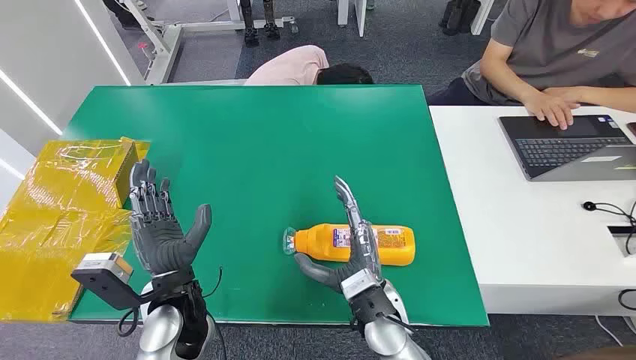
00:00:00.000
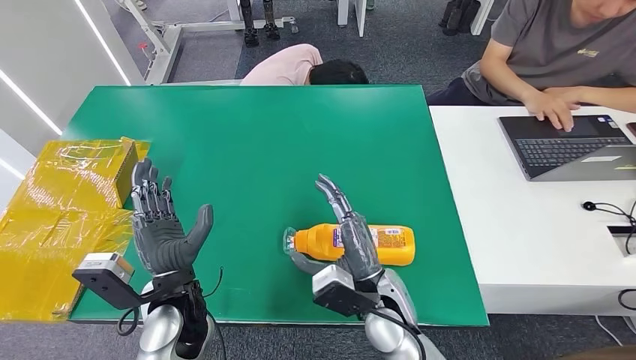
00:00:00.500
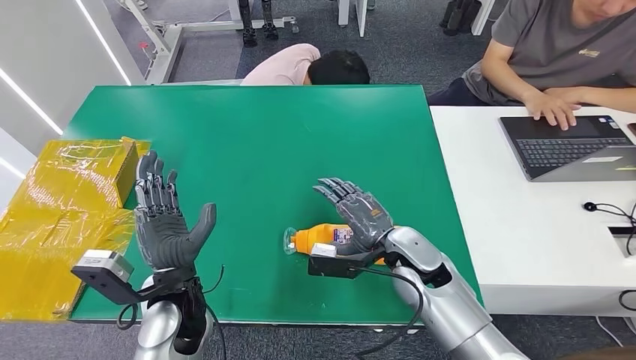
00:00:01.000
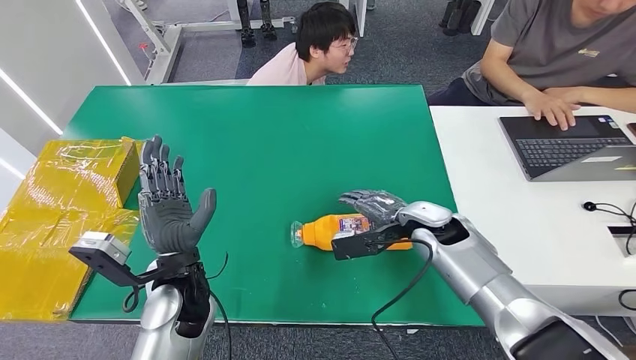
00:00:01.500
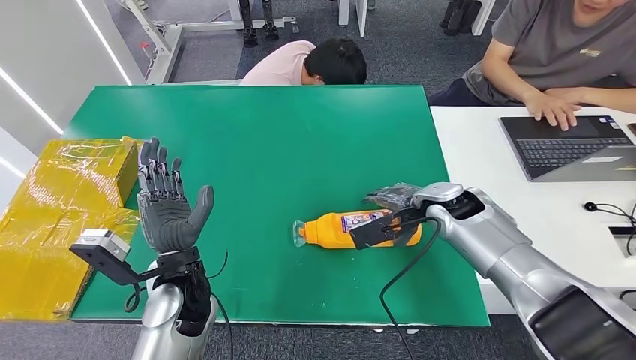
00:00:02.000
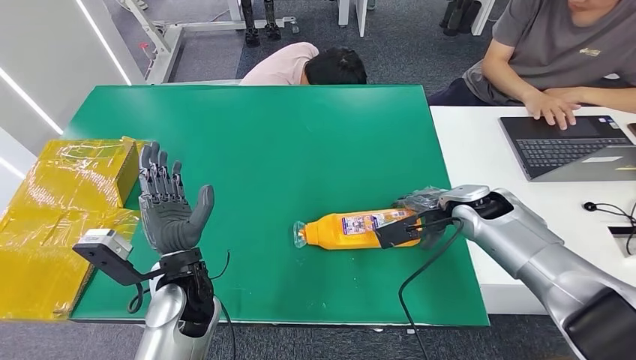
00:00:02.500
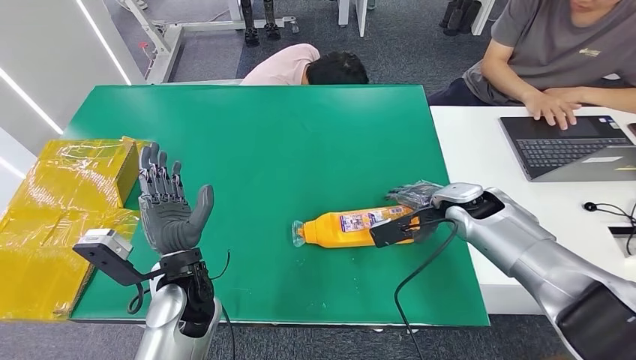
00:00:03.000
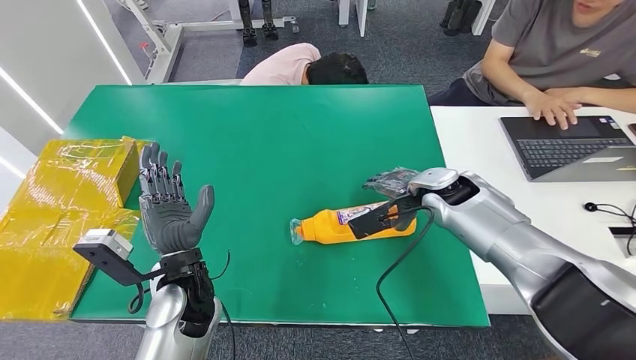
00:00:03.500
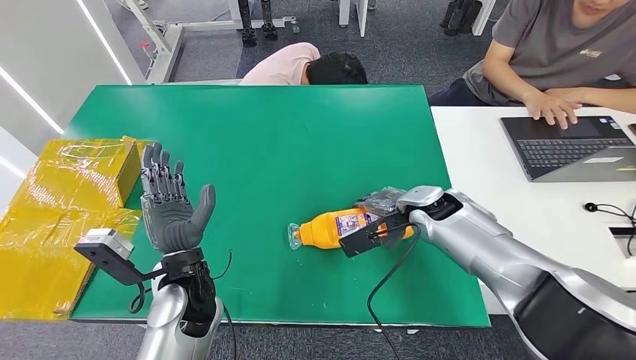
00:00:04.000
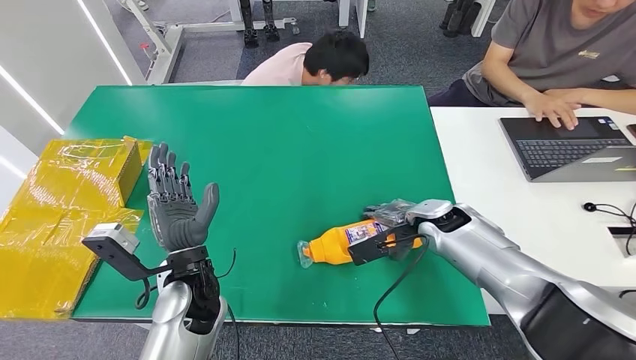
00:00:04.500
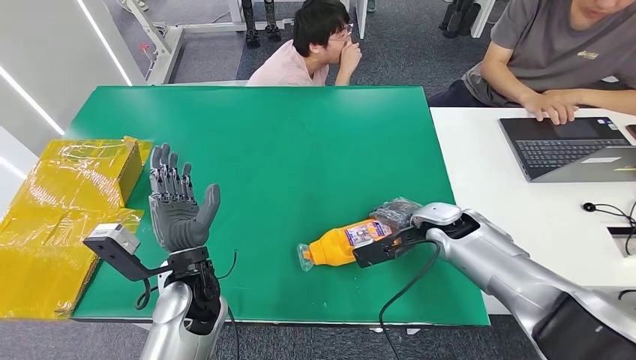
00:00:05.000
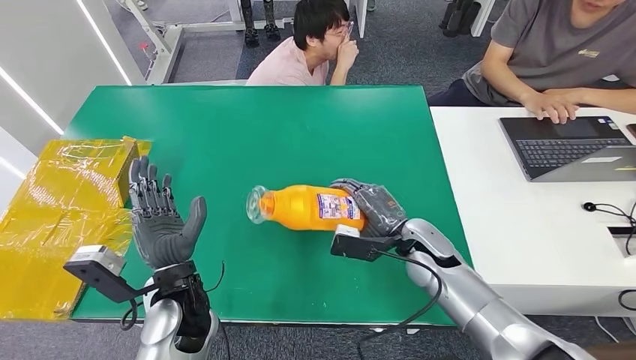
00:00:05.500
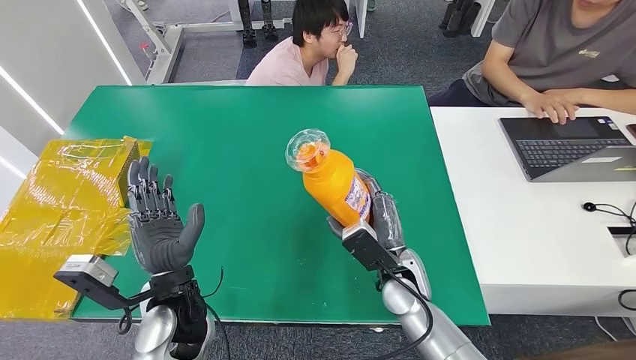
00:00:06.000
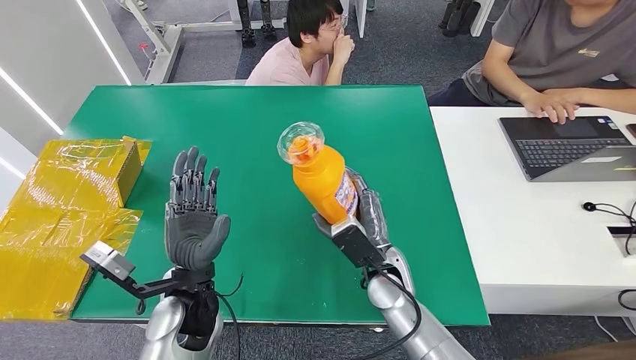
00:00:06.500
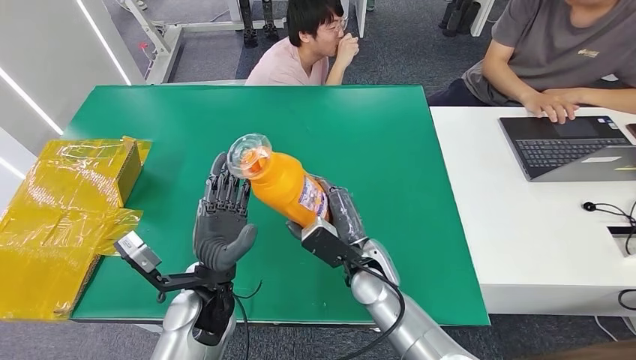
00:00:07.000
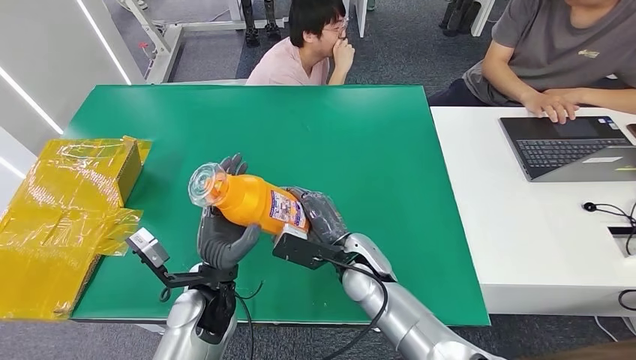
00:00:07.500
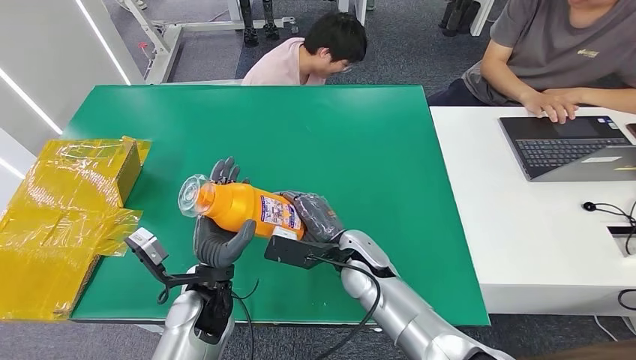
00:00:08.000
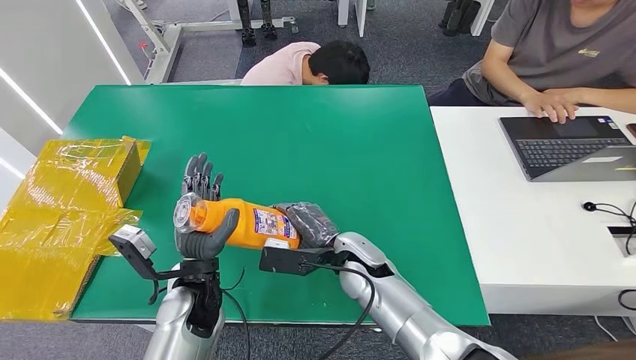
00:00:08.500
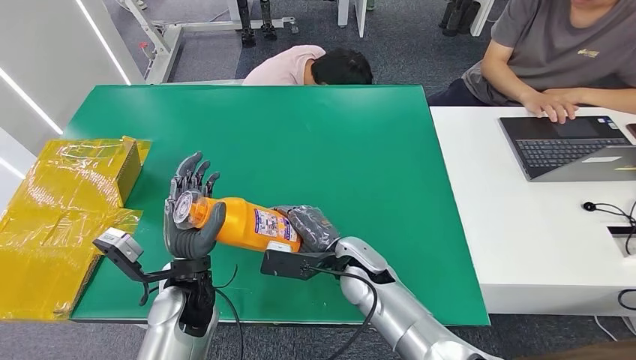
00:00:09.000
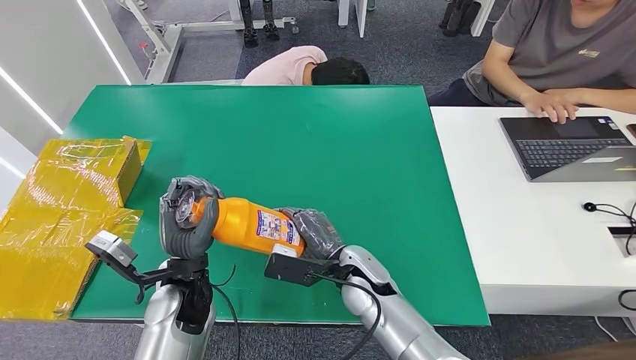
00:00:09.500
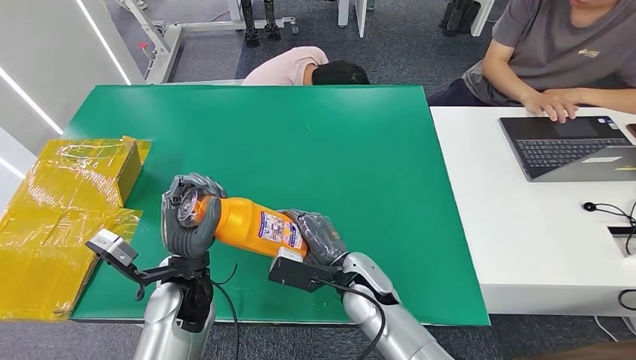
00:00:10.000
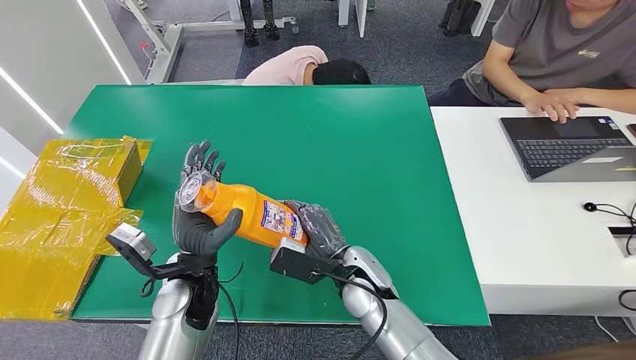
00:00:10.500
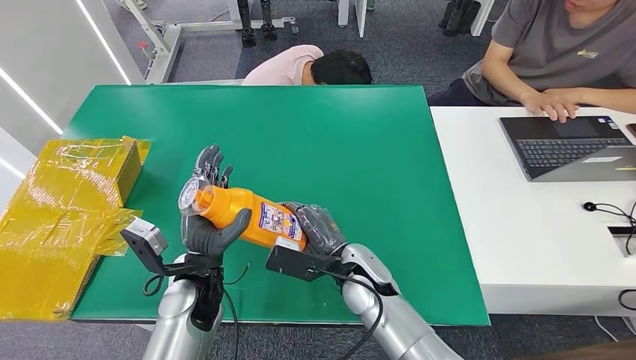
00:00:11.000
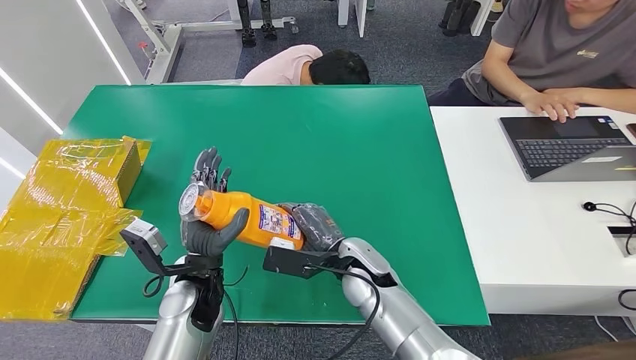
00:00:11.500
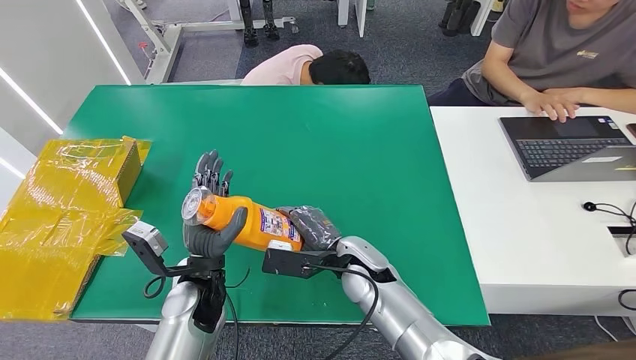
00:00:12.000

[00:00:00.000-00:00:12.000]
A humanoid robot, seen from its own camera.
Step, 00:00:00.000 to 00:00:05.500: Pick up the bottle from the table.
00:00:02.000 to 00:00:04.000: There are only small adjustments of the hands.
00:00:06.000 to 00:00:08.000: The left hand moves roughly 5 cm. Meanwhile the right hand goes about 10 cm to the left.
00:00:08.000 to 00:00:12.000: The hands stay close to where they were, moving slightly.

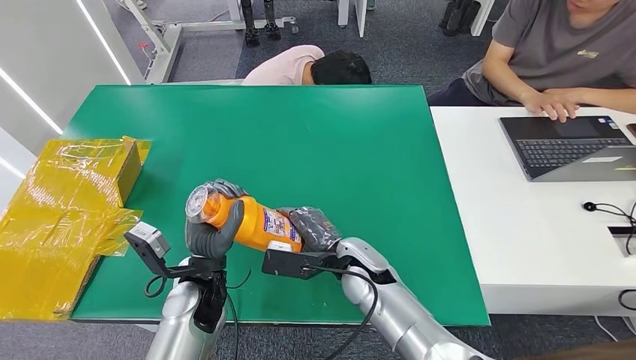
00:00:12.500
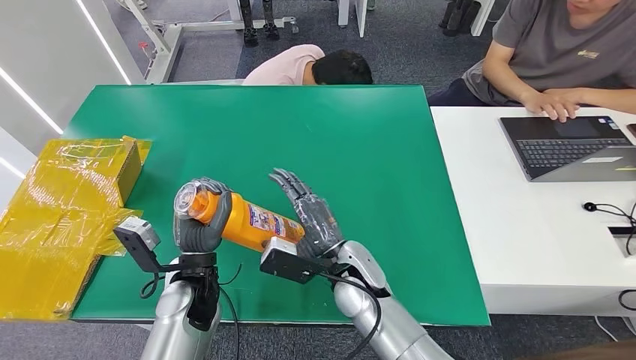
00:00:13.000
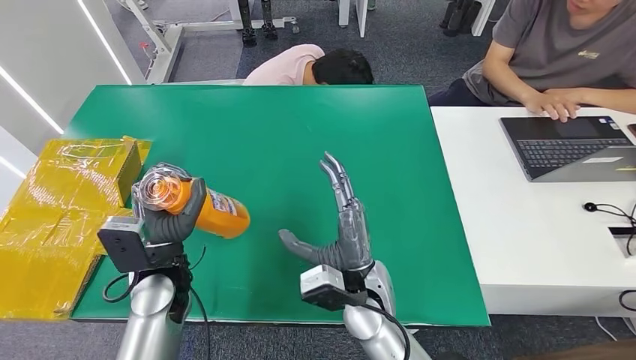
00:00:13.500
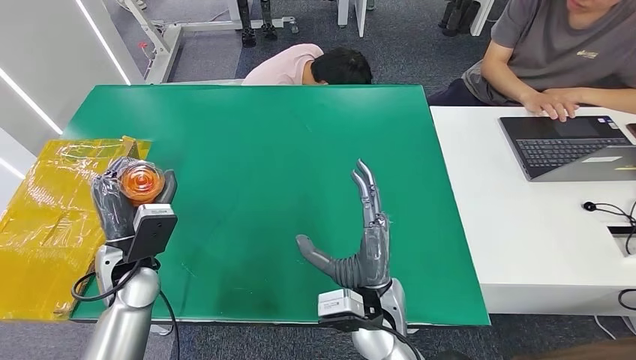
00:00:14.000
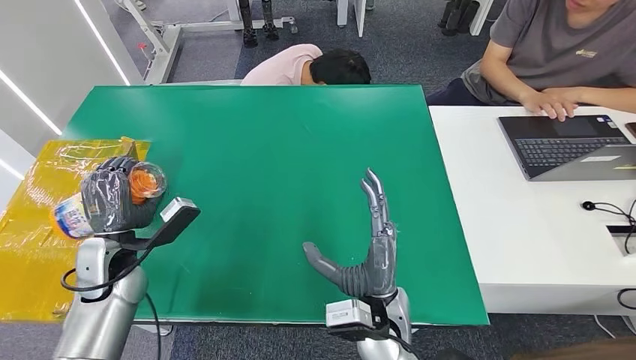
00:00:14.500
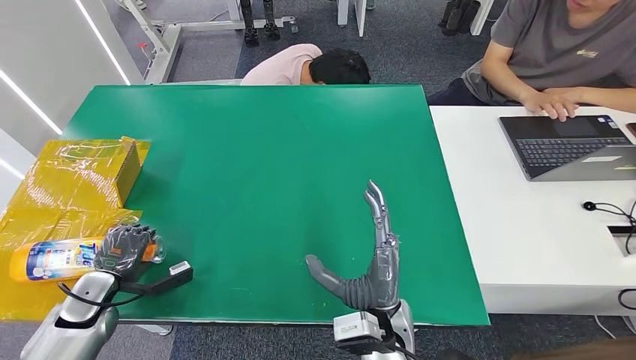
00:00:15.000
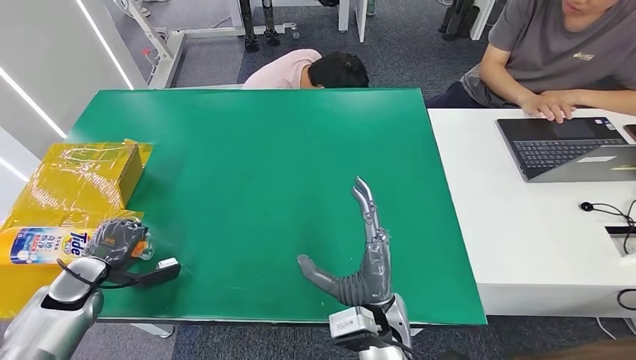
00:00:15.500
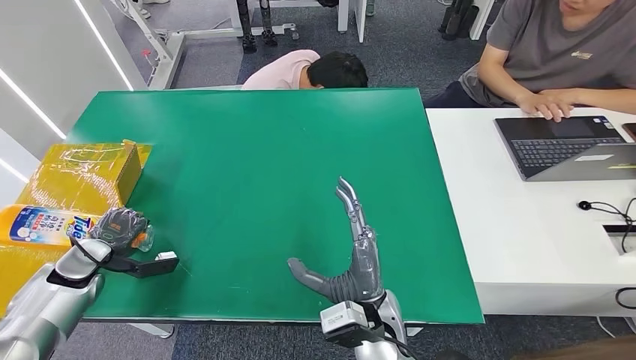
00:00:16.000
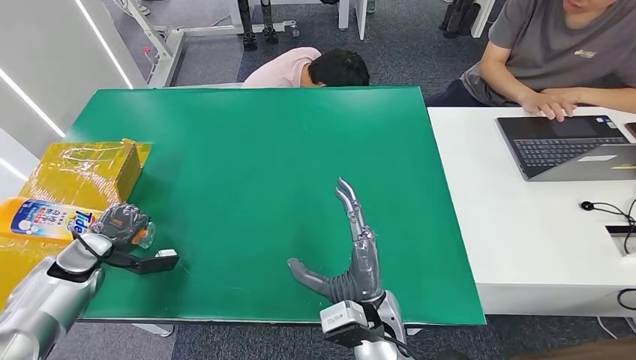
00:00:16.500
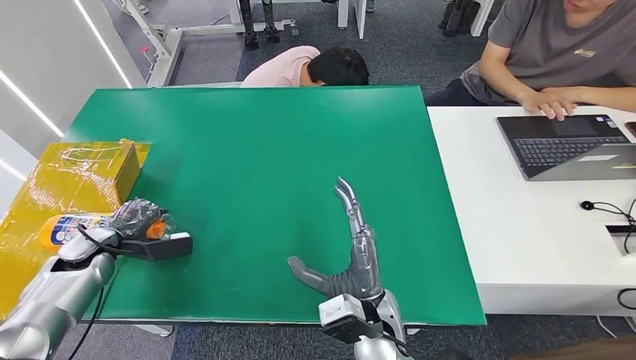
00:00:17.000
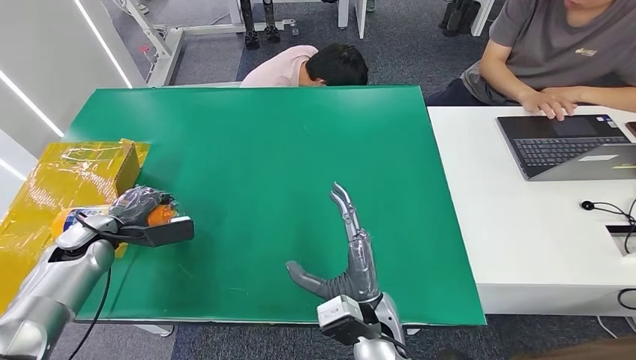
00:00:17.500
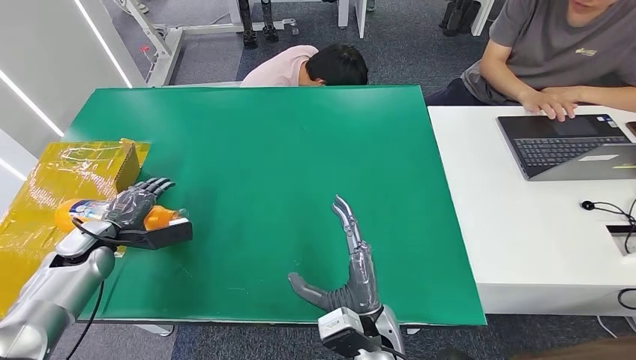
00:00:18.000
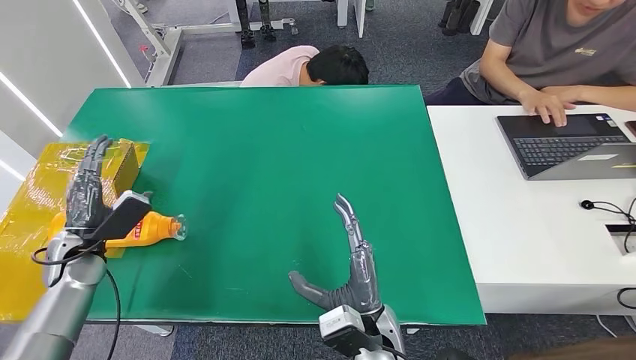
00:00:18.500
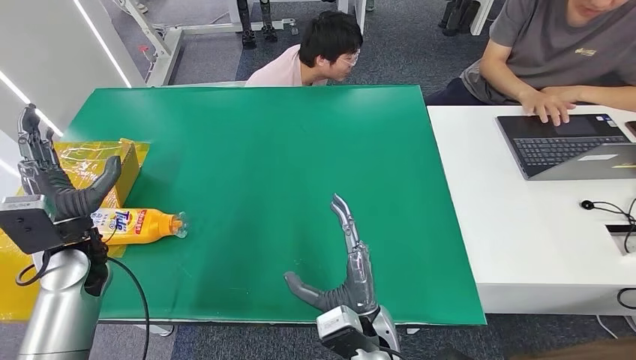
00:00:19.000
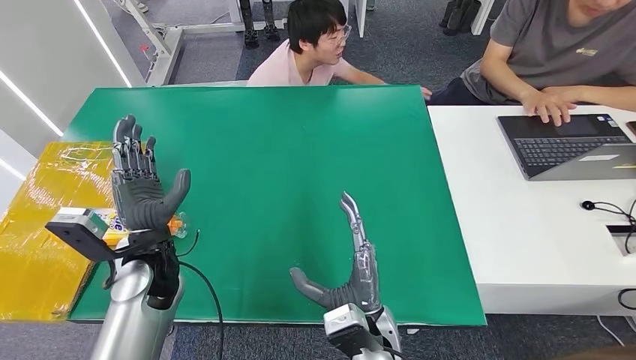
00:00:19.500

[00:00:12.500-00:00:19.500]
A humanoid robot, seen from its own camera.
Step, 00:00:12.500 to 00:00:19.500: Turn the bottle to the front side.
00:00:12.500 to 00:00:14.500: The left hand goes approximately 15 cm to the left, while the right hand heads backward, covering approximately 10 cm.
00:00:16.000 to 00:00:17.500: The left hand changes place by roughly 5 cm.
00:00:17.500 to 00:00:19.500: The left hand moves to the right, roughly 20 cm.

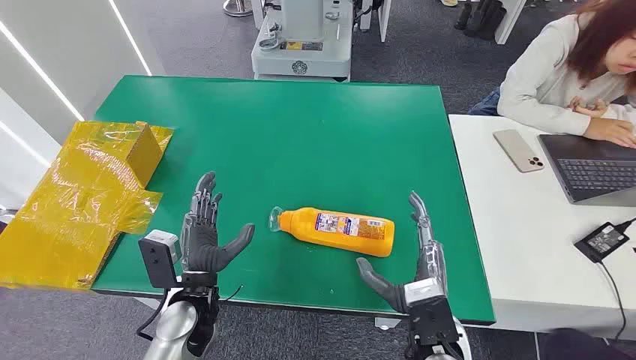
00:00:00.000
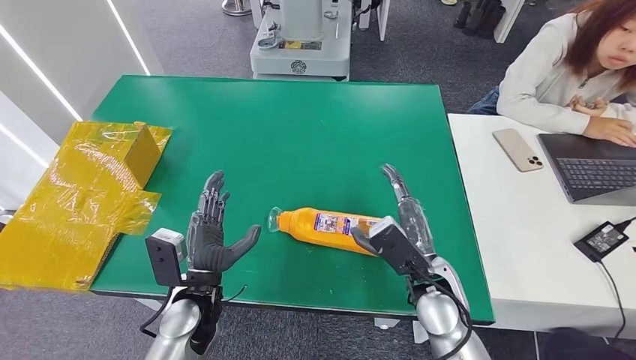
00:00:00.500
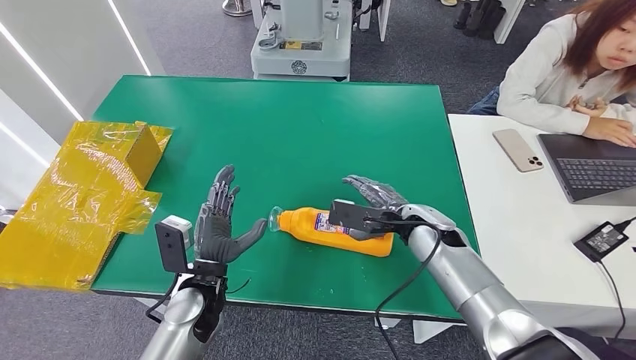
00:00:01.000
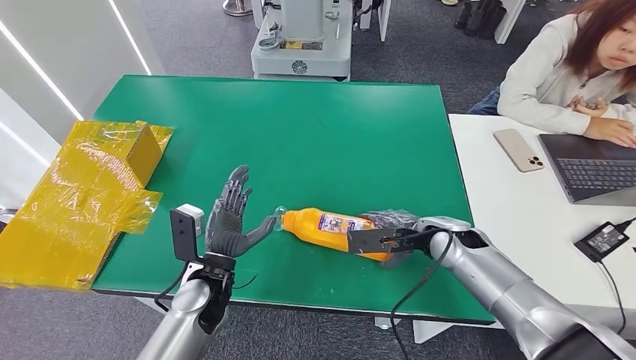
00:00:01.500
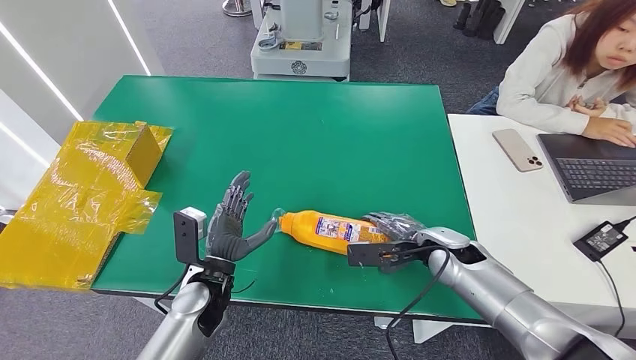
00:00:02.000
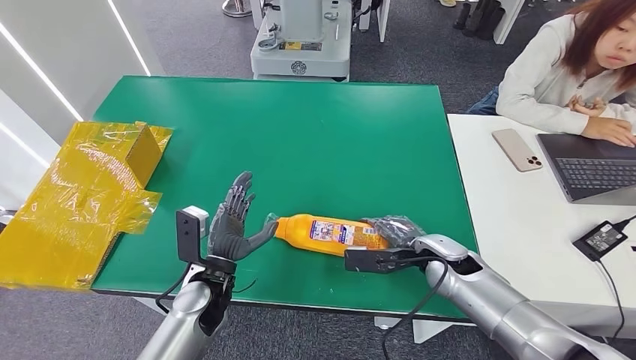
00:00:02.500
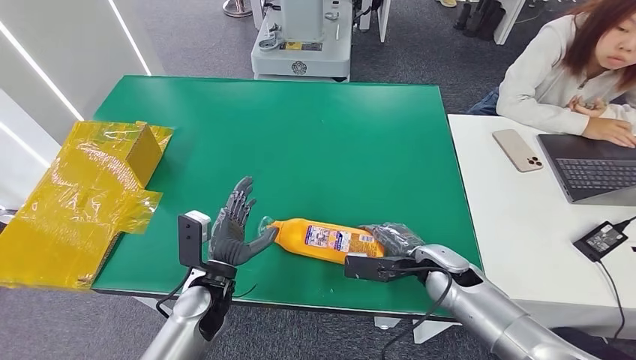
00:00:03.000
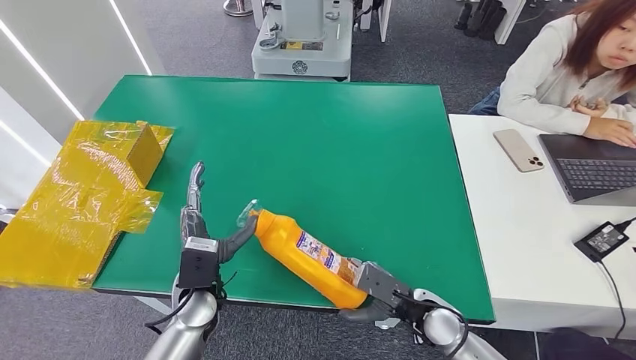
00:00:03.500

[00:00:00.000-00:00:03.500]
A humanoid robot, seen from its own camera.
00:00:02.000 to 00:00:03.500: The right hand moves backward and downward, roughly 15 cm.
